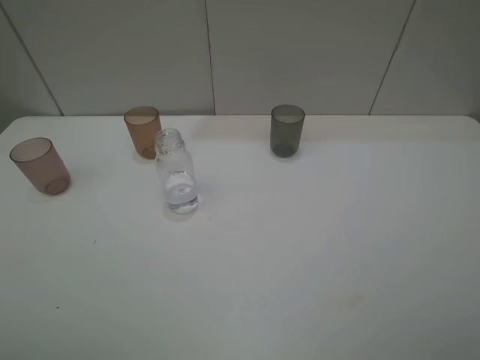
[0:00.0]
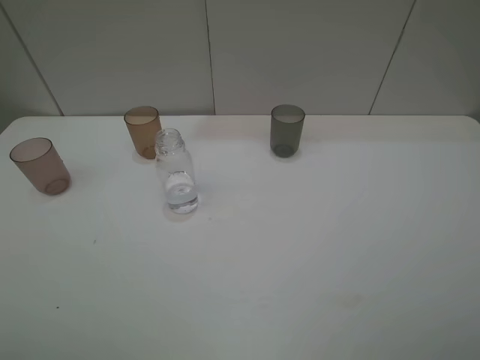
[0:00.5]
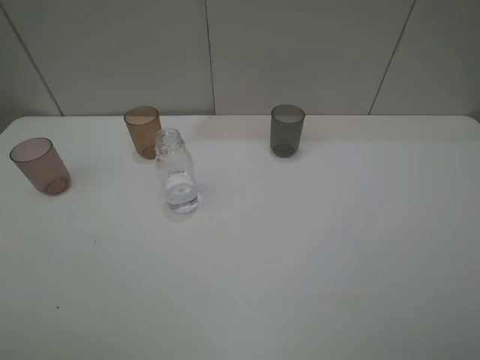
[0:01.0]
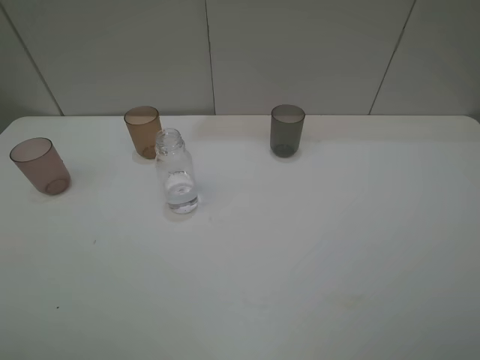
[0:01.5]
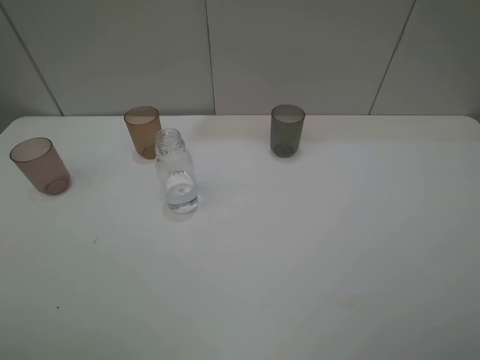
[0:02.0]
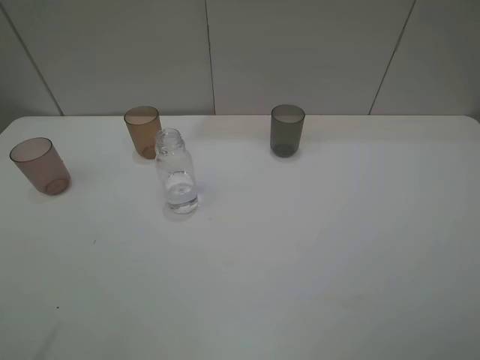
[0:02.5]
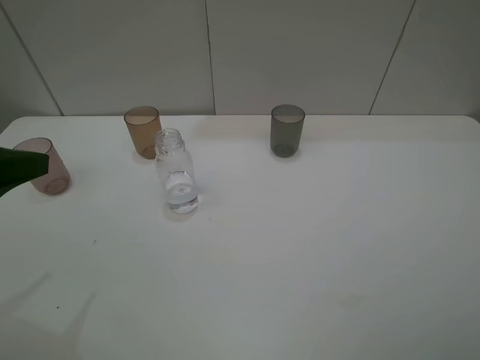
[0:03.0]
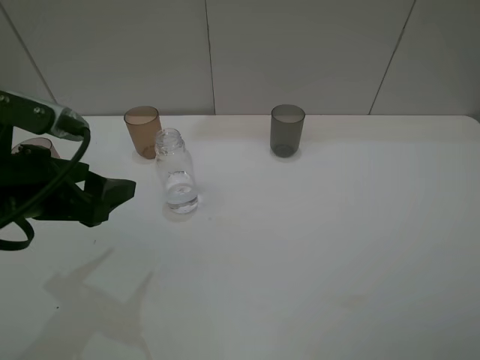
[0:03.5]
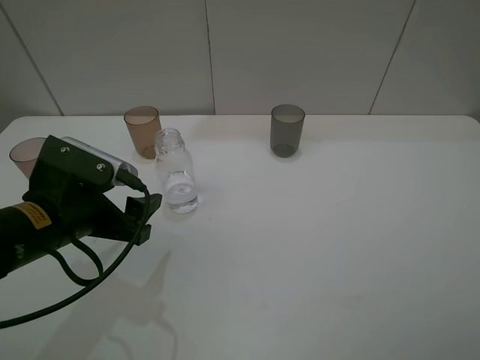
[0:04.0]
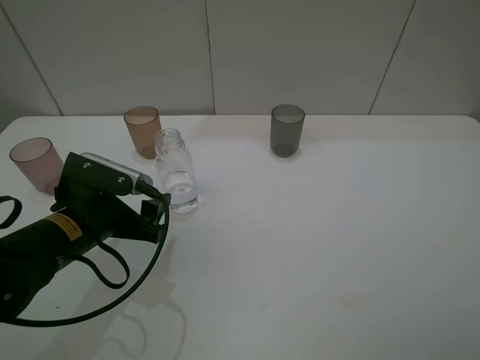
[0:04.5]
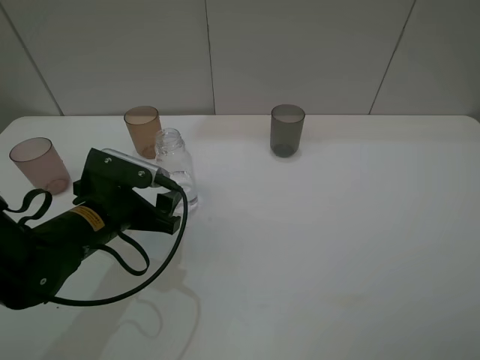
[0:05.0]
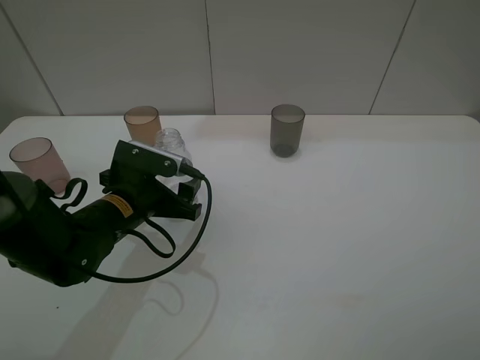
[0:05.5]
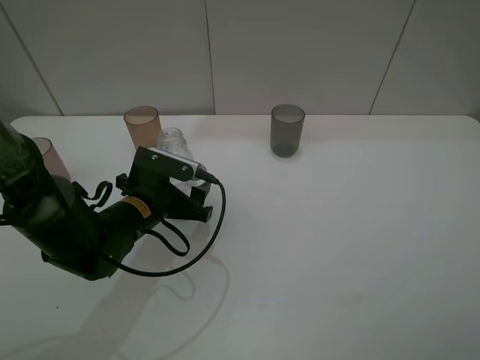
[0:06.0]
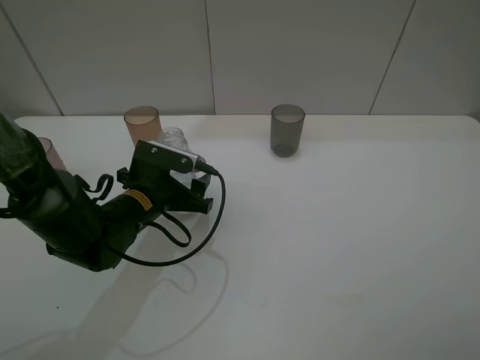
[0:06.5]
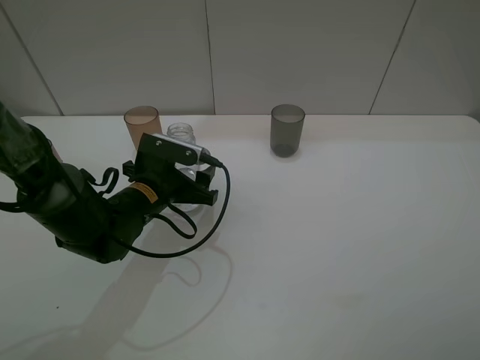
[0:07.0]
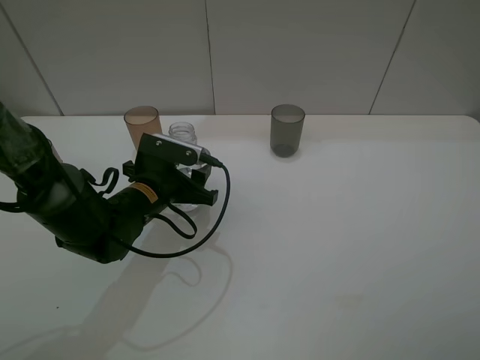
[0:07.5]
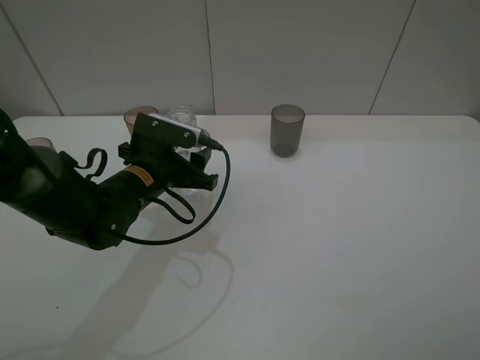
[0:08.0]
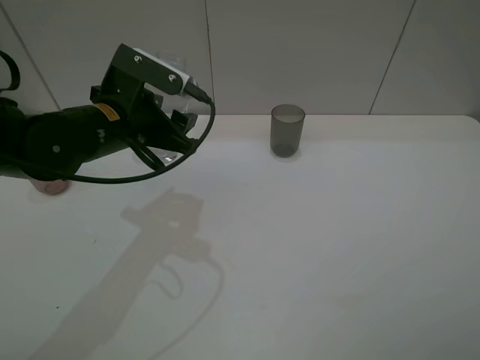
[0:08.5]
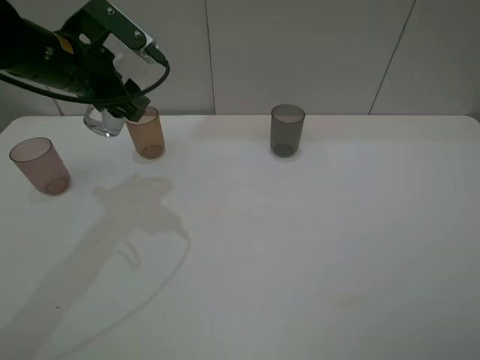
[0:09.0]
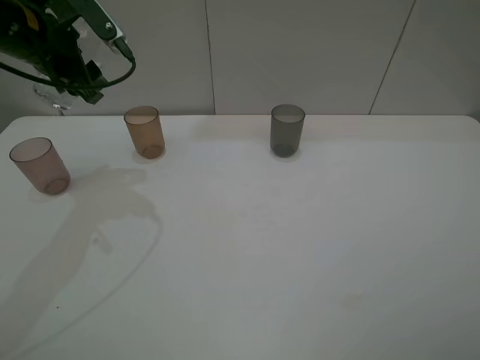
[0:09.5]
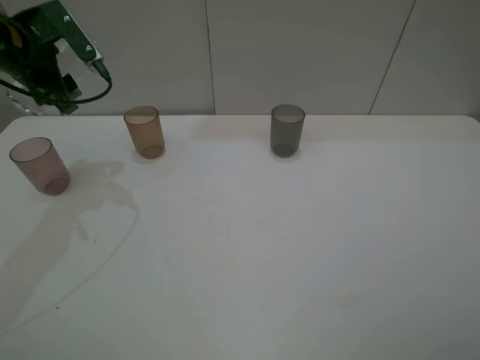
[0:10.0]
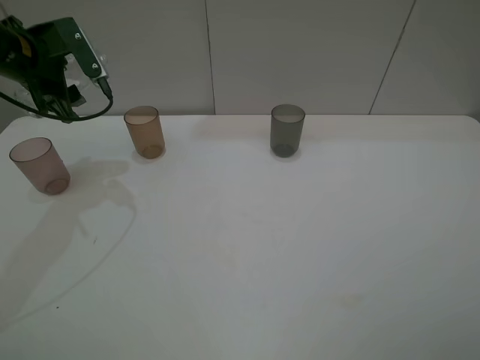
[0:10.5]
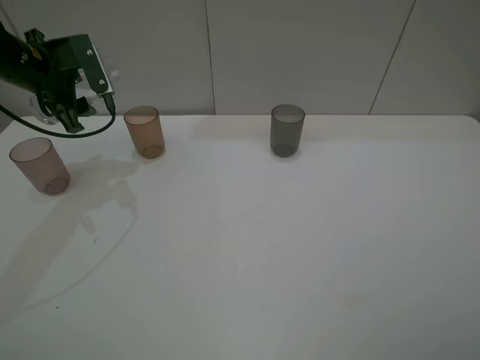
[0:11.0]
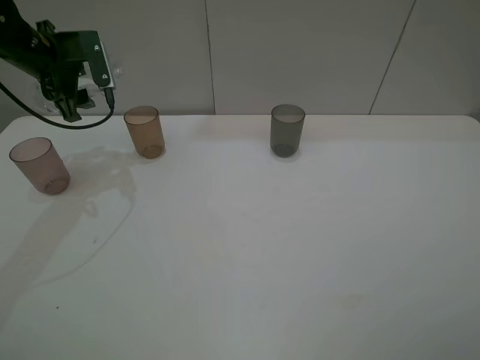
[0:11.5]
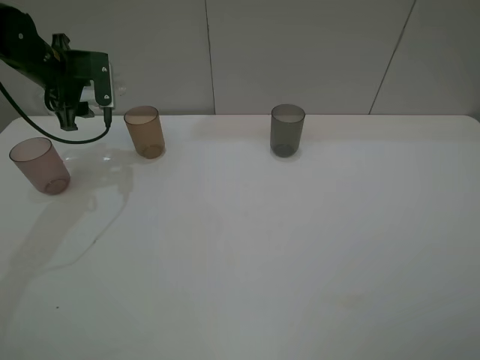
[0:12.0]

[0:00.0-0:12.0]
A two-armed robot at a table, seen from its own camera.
Task of the whole recording: pick up the bottle filled with water and pour water into the middle cup of the three cups.
Step, 0:00.0 to 0:06.0: Grasp the transparent bottle with the left gripper.
0:02.0 to 0:04.0: The left gripper moves forward, downward and to the right, some 20 cm.
0:04.0 to 0:06.0: The left gripper heads downward, forward and to the right, covering some 10 cm.
0:06.0 to 0:08.0: The left gripper closes.
0:08.0 to 0:10.0: The left gripper moves to the left, upward and forward, some 25 cm.
0:10.0 to 0:12.0: The left gripper travels forward by approximately 5 cm.

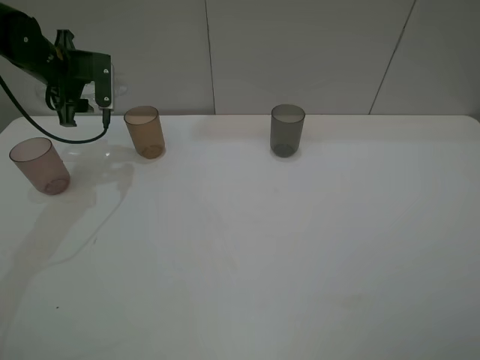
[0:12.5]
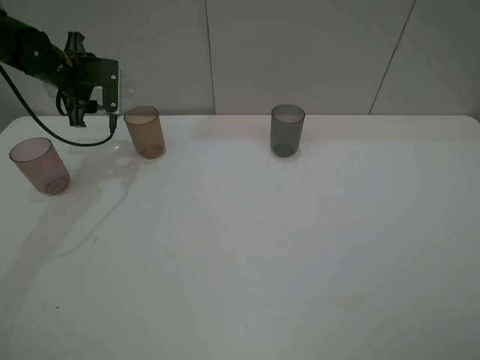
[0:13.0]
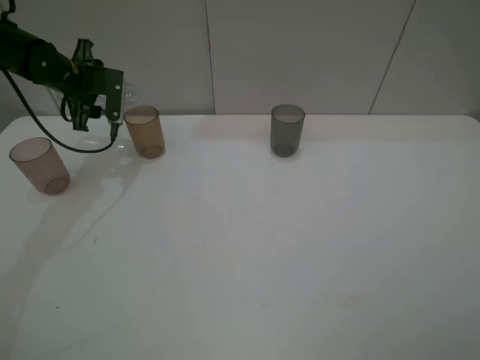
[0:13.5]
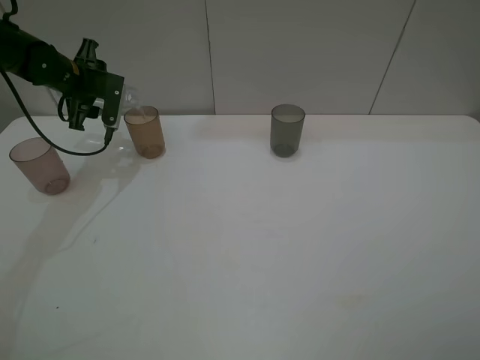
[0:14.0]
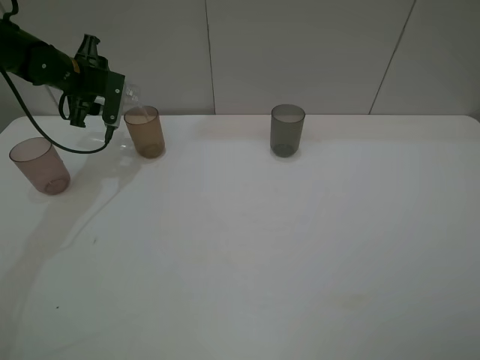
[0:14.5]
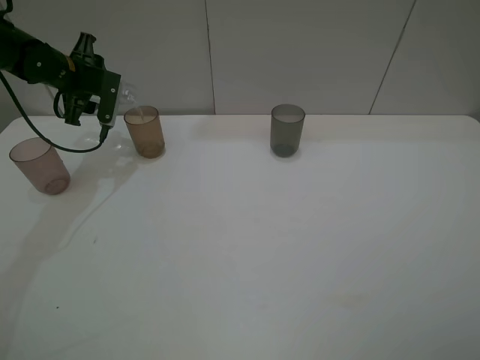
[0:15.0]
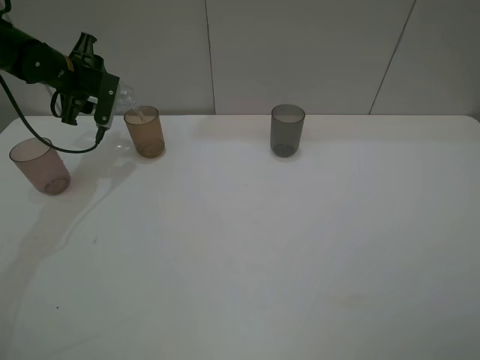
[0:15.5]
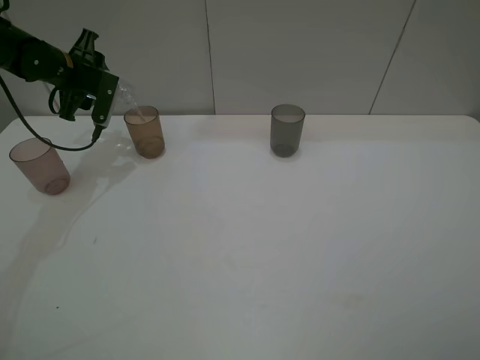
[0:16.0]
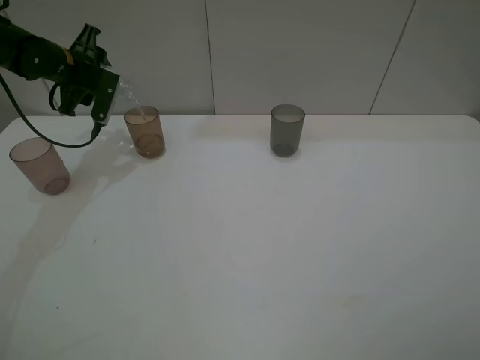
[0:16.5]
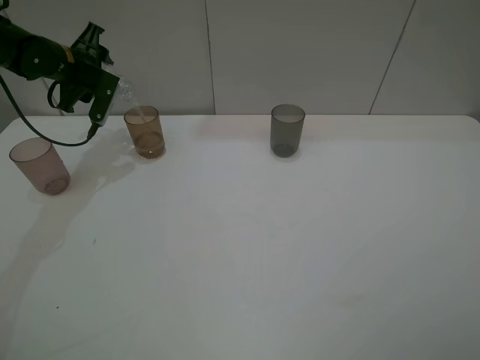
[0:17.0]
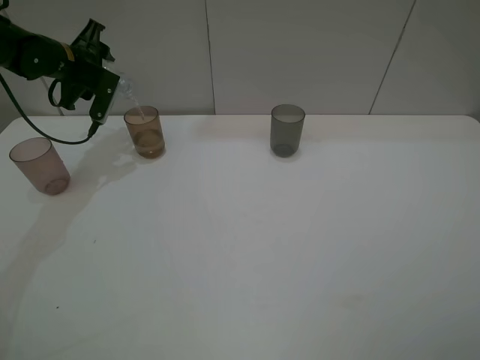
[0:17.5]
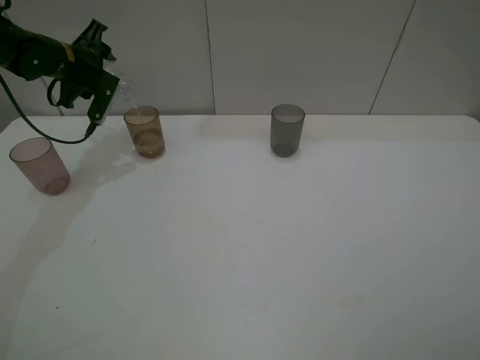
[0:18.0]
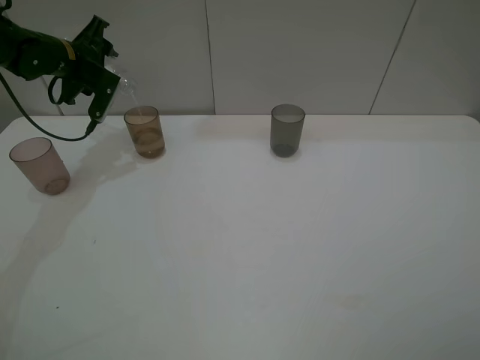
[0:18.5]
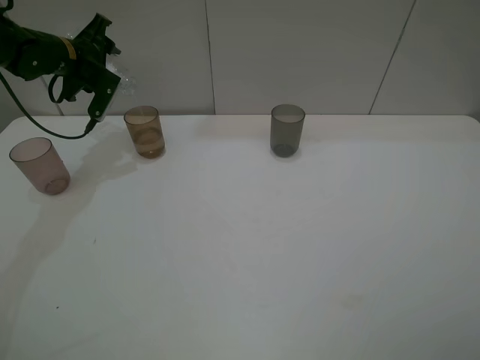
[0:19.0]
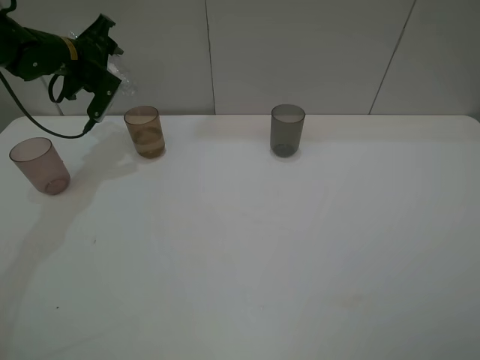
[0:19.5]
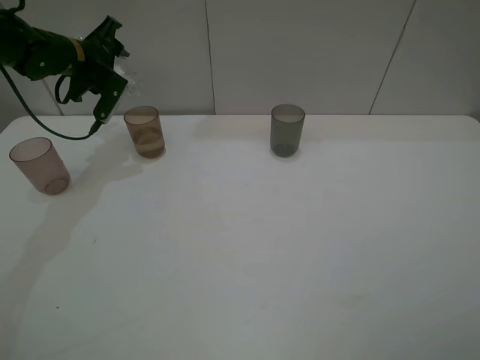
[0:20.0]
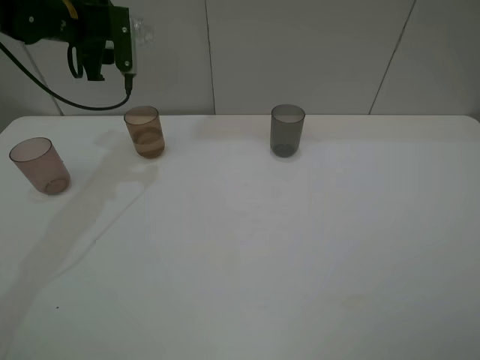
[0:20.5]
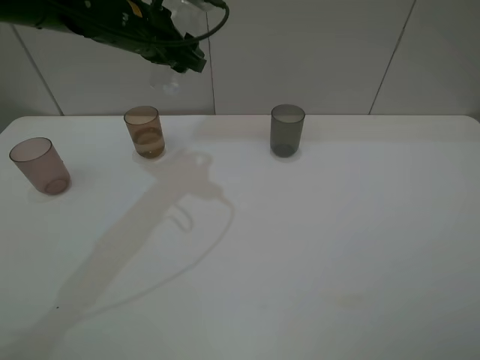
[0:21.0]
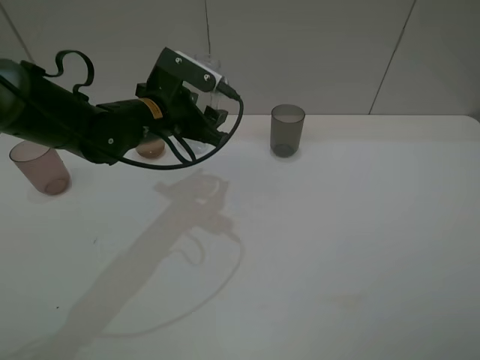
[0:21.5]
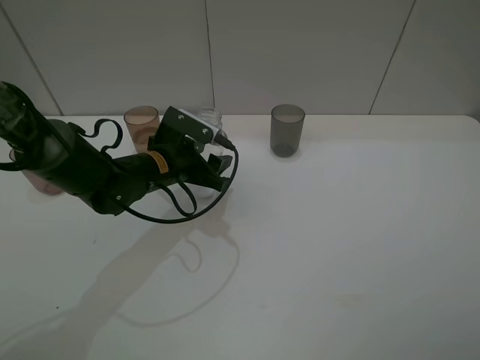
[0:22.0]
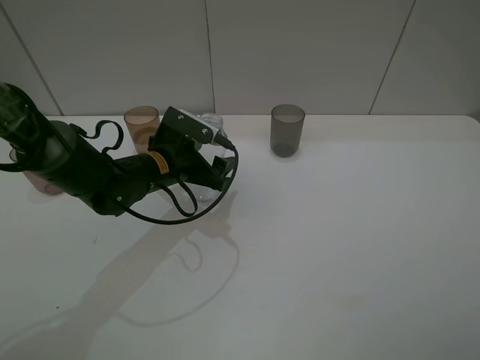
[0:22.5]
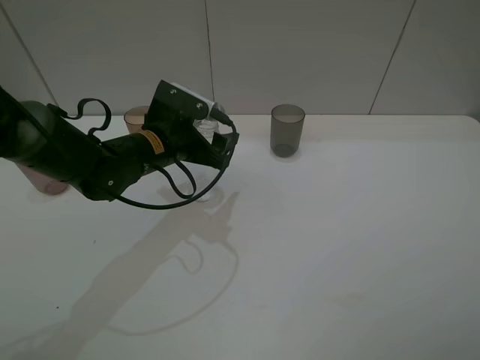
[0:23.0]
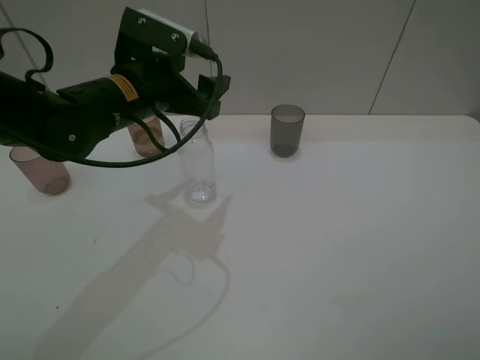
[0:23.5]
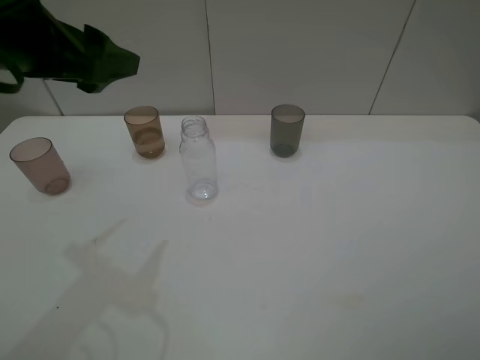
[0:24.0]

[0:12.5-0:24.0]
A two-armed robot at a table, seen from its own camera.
Task of the whole recording: pick up the bottle filled with water and pour water into the middle cup of the three cups.
0:12.5 to 0:14.5: The grippers move only a little.
0:14.5 to 0:16.5: The grippers stay close to where they were, moving slightly.
0:16.5 to 0:20.0: The grippers stay close to where they were, moving slightly.
0:20.0 to 0:22.0: The left gripper goes roughly 25 cm backward, to the right and downward.
0:22.0 to 0:24.0: The left gripper shifts approximately 30 cm upward, to the left and backward, and opens its fingers.

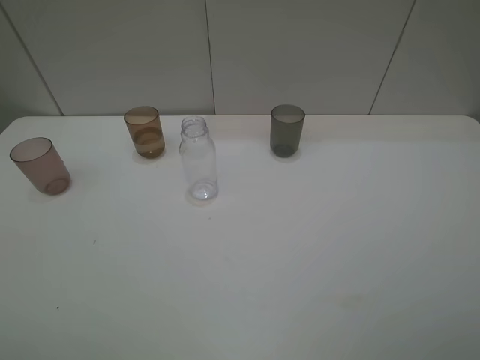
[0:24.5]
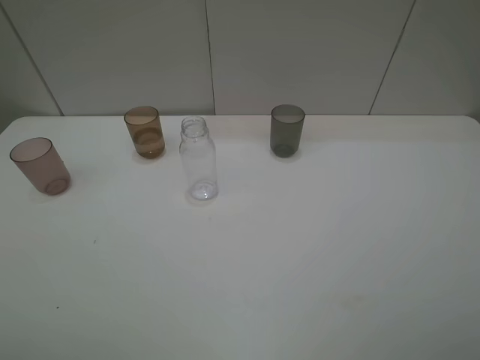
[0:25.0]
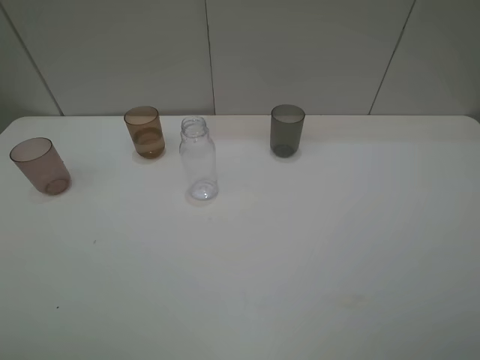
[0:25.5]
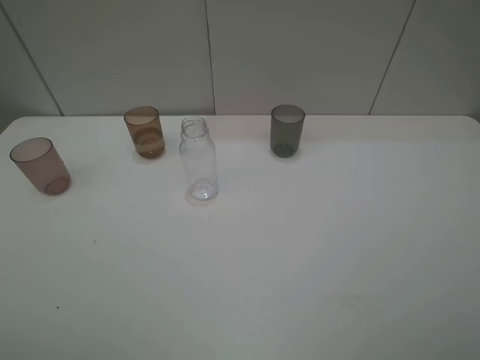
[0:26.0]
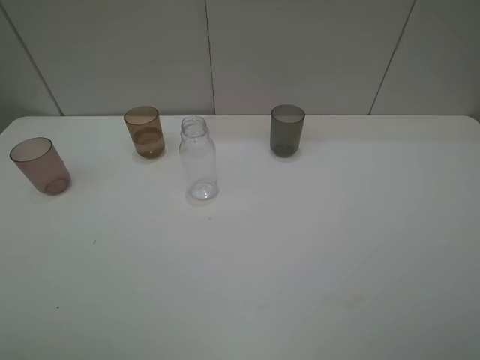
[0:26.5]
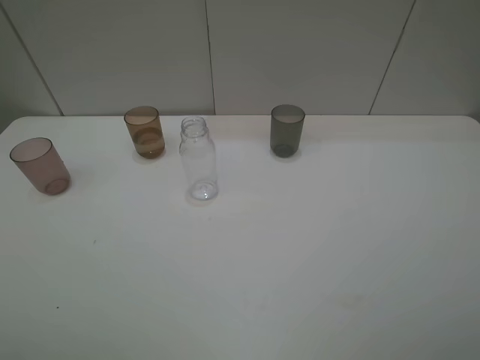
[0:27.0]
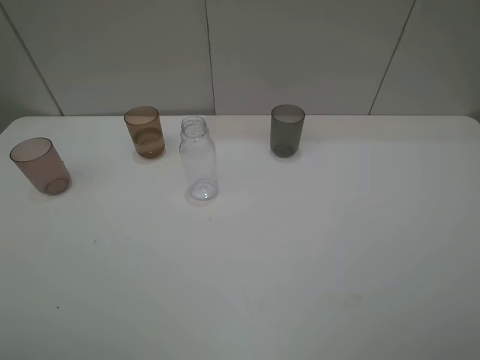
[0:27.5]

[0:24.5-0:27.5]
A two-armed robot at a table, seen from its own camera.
Task of the whole recording: pick up the bottle filled with water and pour water into the middle cup of the three cups.
0:26.0 to 0:27.5: Neither gripper changes place.
